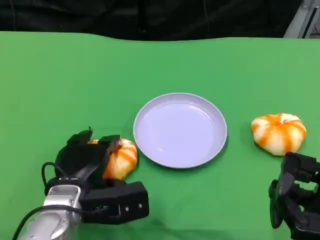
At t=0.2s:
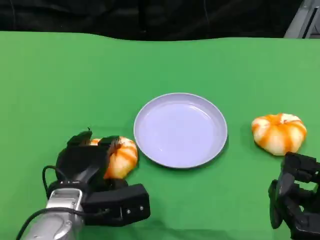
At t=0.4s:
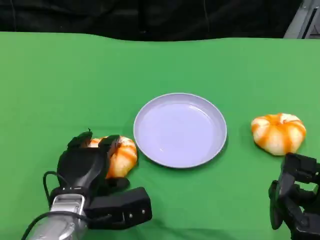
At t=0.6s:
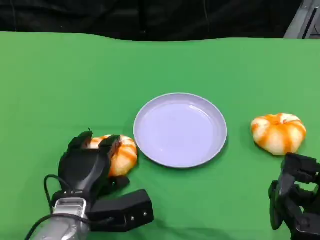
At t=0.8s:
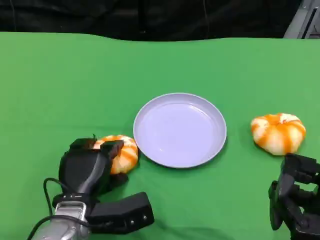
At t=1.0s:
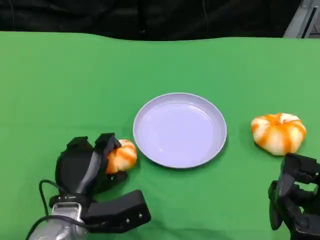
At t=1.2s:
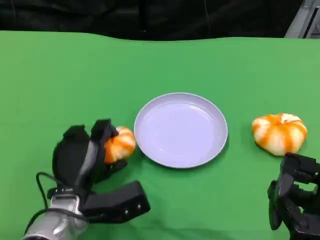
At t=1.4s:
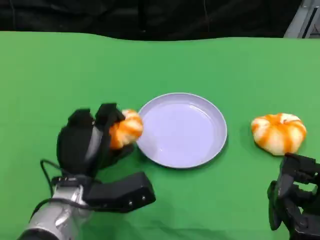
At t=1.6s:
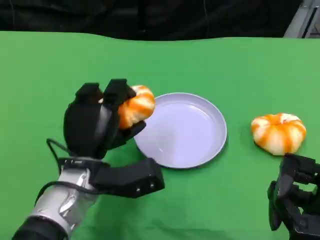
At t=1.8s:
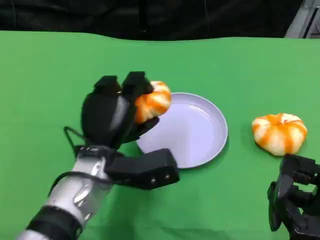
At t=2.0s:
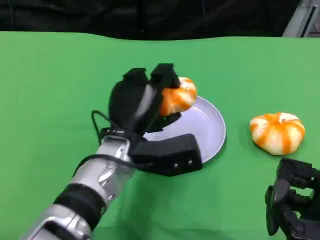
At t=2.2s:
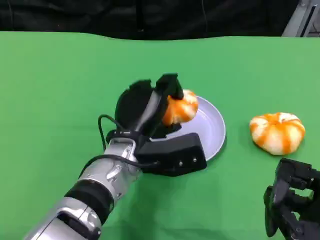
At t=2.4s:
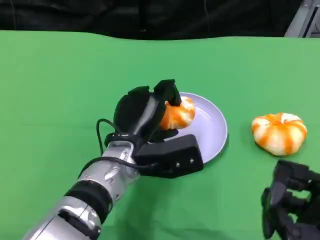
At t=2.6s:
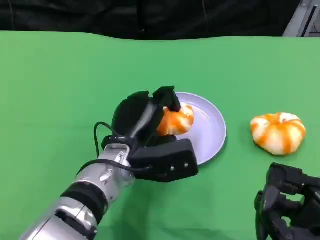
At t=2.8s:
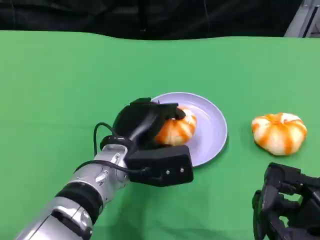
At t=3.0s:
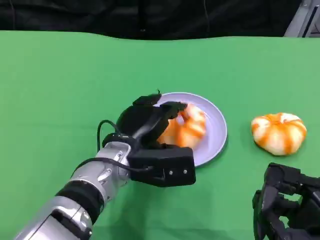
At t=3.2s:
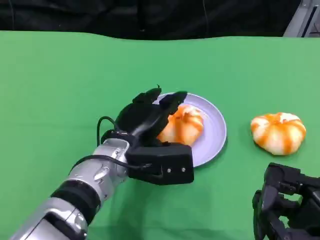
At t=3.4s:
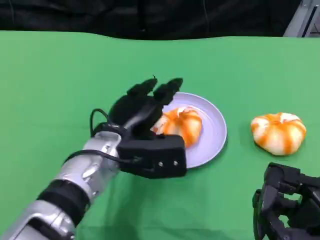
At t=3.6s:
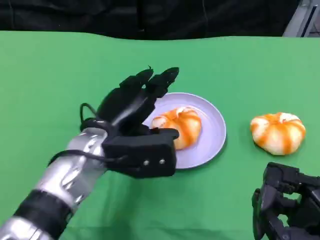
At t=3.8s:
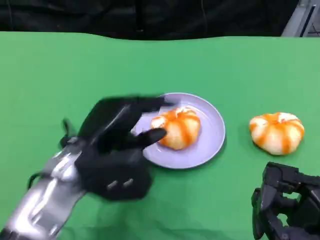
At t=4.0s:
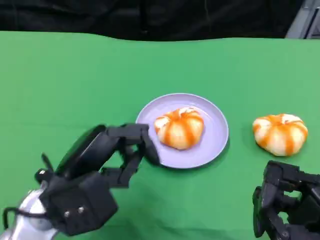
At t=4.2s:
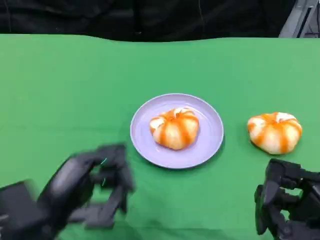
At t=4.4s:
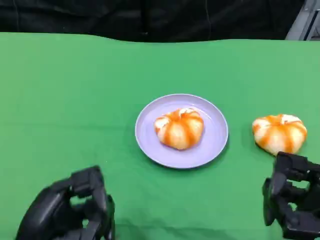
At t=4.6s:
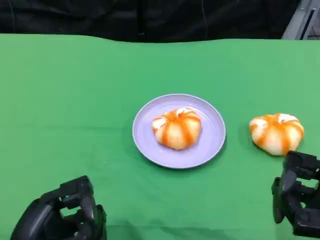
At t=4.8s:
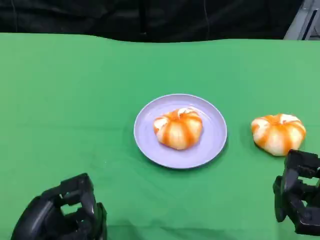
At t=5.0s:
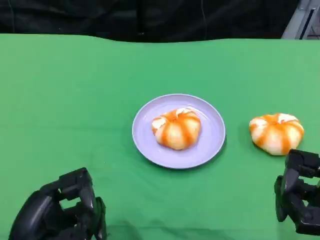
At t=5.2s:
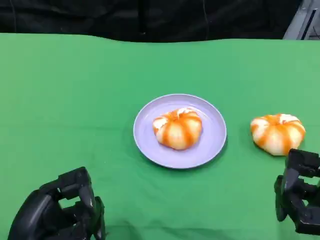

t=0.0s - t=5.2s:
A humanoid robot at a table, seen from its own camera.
Task of the whole recording: Grasp the bread from the table and place it into the plate.
t=0.0s - t=1.8s: The left hand is displaced to the right and upward by some 10 cm.
t=3.4s - t=5.2s: The left hand travels backward and to the left by some 20 cm.

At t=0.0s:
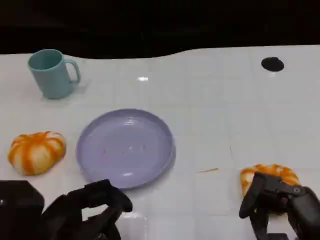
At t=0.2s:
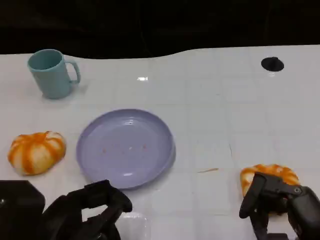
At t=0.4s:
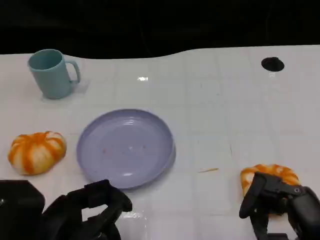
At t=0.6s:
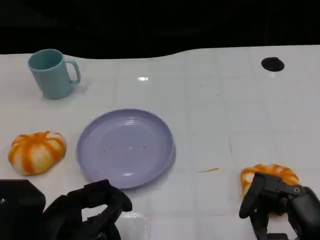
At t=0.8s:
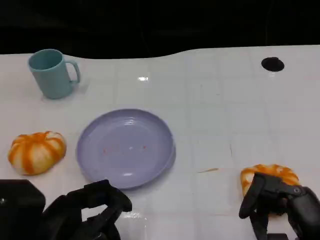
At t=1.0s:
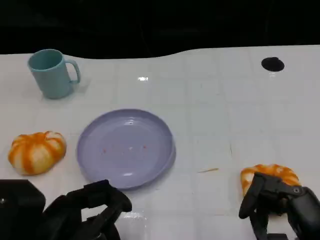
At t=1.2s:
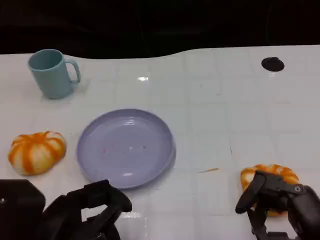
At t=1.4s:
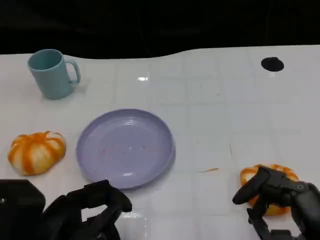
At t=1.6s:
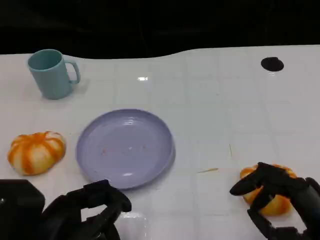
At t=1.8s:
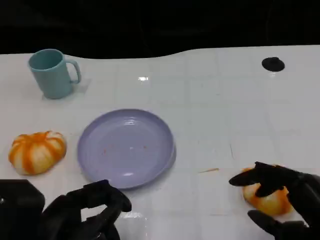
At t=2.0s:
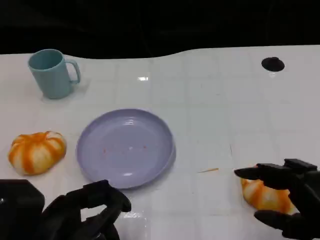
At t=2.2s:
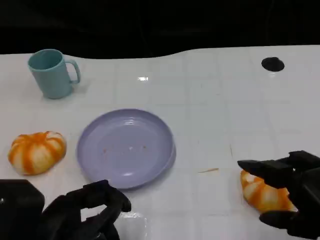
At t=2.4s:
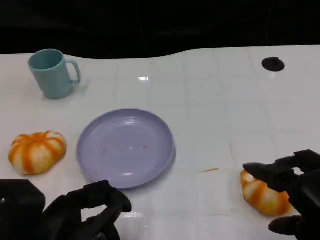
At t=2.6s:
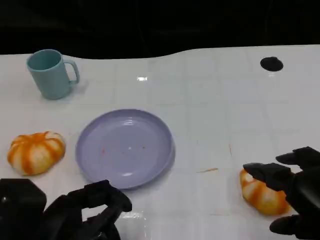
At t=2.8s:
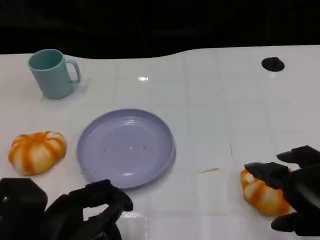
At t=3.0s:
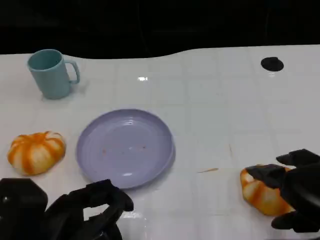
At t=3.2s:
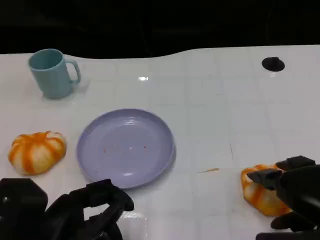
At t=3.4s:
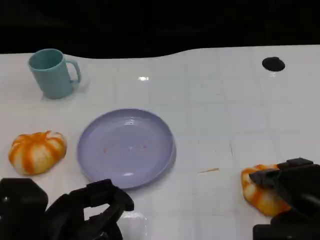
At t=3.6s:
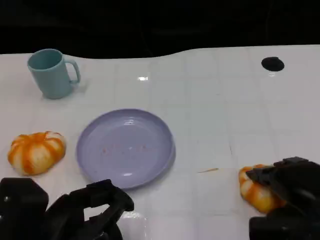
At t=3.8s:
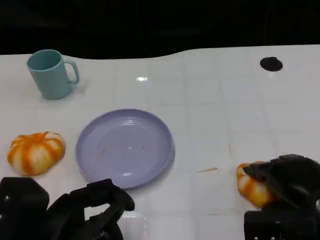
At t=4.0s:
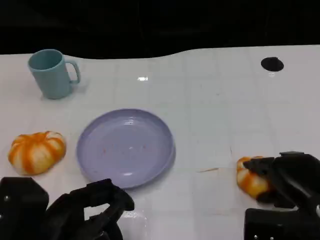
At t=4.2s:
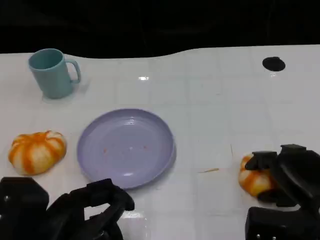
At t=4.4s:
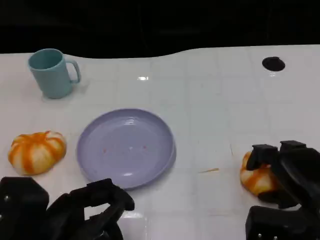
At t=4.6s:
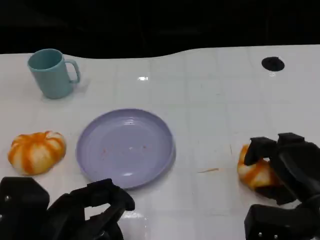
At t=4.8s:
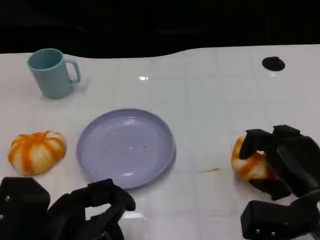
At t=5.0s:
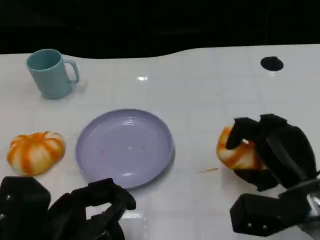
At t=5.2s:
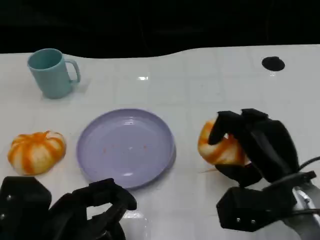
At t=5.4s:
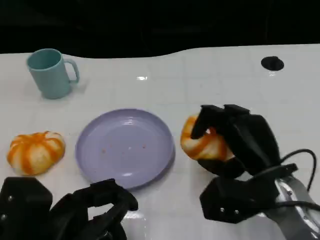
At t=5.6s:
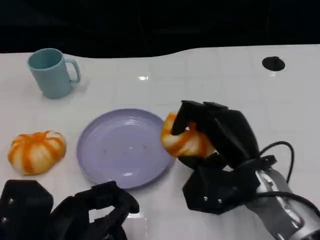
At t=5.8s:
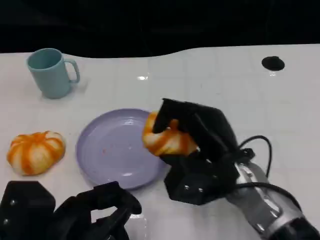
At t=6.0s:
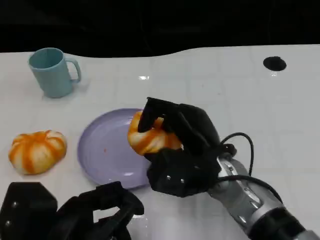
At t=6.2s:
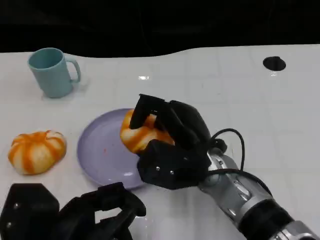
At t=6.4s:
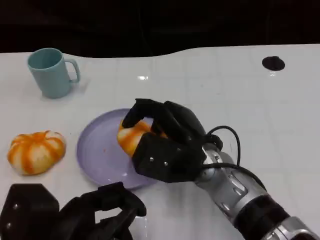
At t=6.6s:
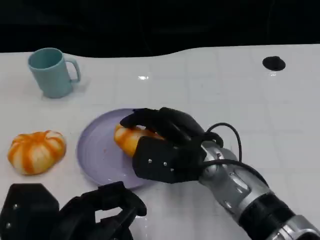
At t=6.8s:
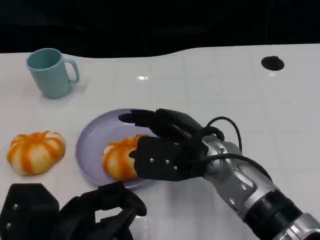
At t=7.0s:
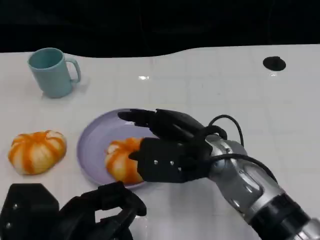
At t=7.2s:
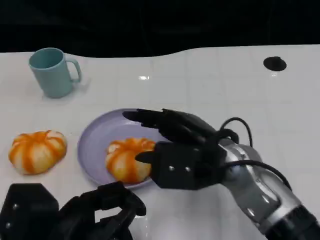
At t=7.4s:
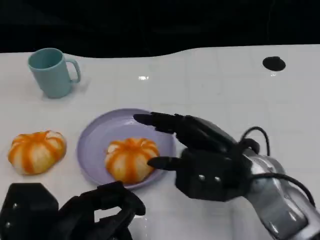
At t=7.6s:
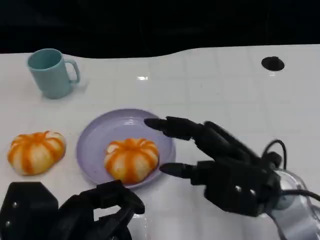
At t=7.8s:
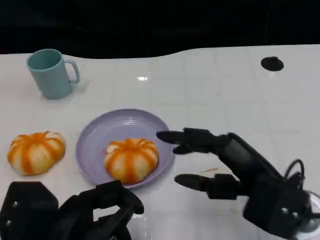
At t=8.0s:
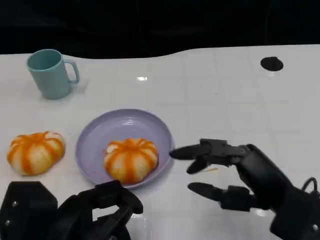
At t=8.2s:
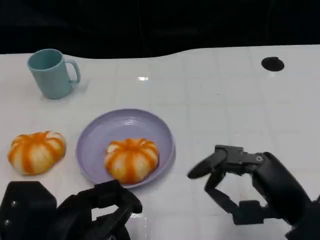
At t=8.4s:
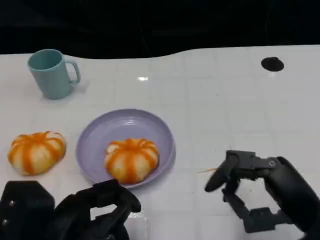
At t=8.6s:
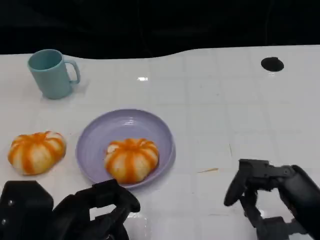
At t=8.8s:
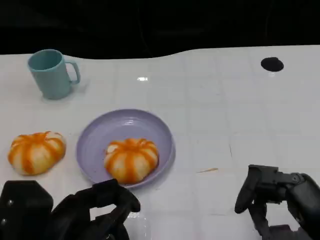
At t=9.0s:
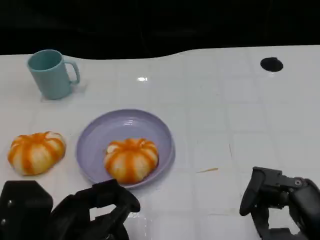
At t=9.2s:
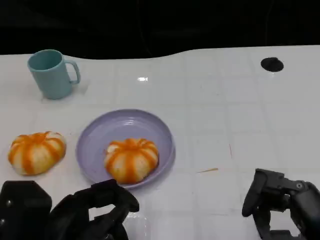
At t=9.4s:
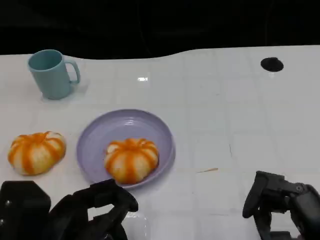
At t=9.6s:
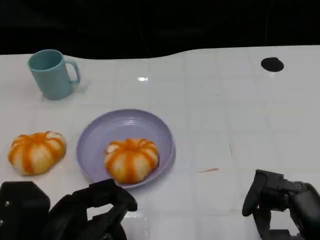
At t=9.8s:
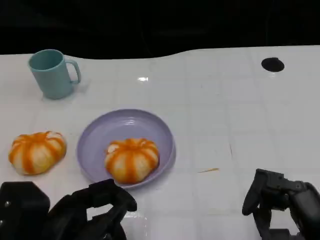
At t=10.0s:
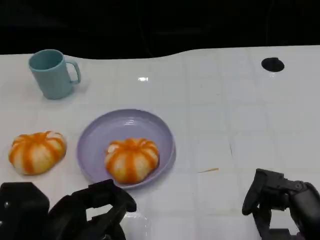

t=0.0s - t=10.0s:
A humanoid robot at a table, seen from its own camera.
Task of the whole recording: Grasp the bread from the table and place it into the plate.
t=0.0s - t=1.4s: Neither hand changes place.
t=1.4s - t=2.8s: The right hand shifts by about 5 cm.
t=2.8s - t=4.2s: The right hand is displaced downward and forward by approximately 10 cm.
t=4.2s - t=5.8s: The right hand moves to the left, about 15 cm.
t=7.2s - t=8.6s: The right hand shifts about 15 cm to the right and backward.
t=8.6s - t=10.0s: The hands make only small movements.
